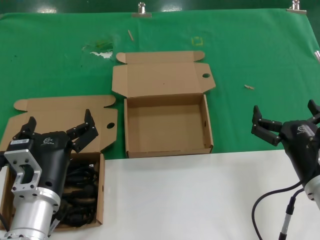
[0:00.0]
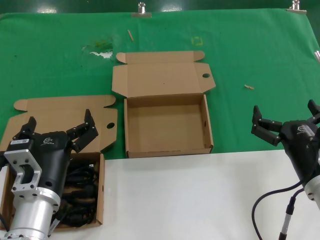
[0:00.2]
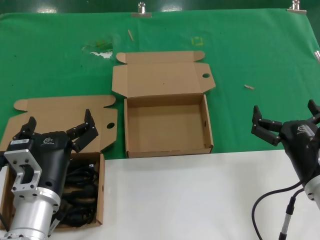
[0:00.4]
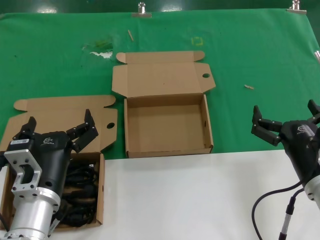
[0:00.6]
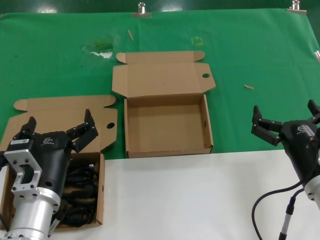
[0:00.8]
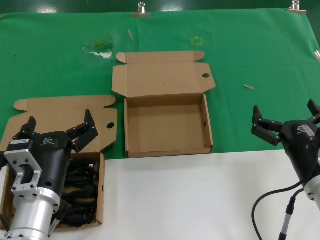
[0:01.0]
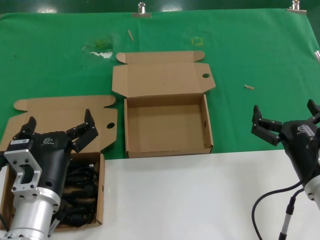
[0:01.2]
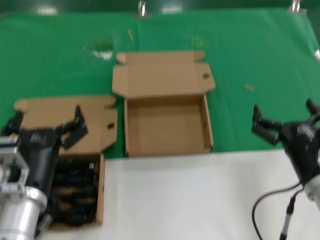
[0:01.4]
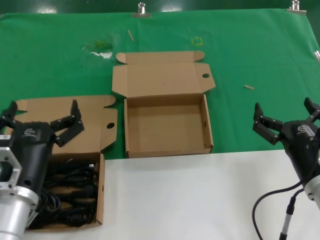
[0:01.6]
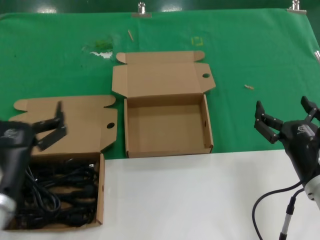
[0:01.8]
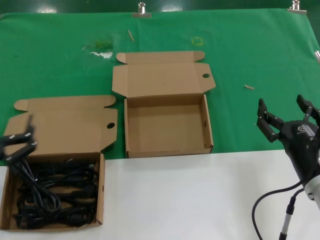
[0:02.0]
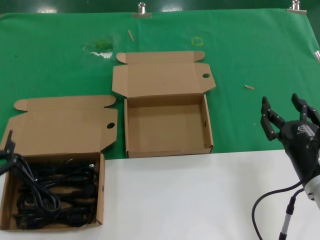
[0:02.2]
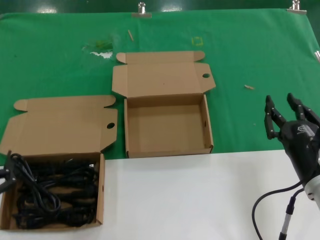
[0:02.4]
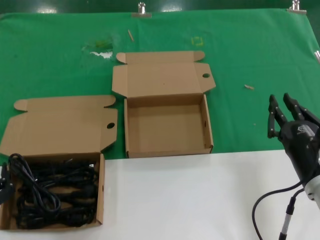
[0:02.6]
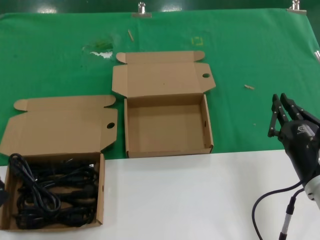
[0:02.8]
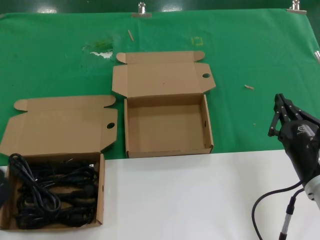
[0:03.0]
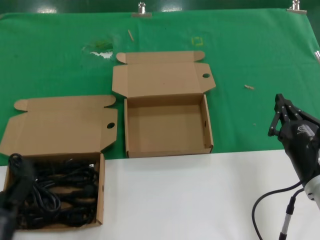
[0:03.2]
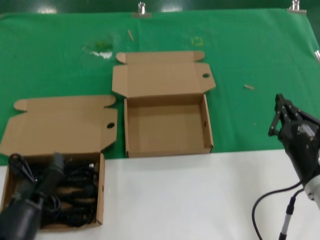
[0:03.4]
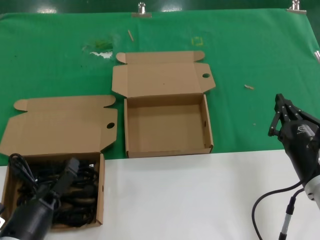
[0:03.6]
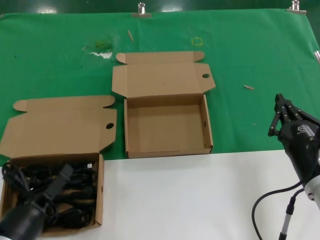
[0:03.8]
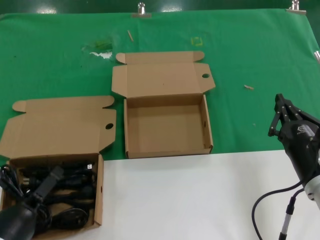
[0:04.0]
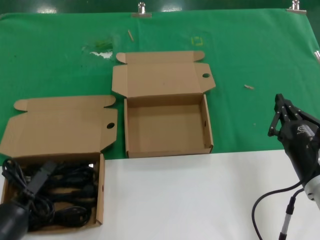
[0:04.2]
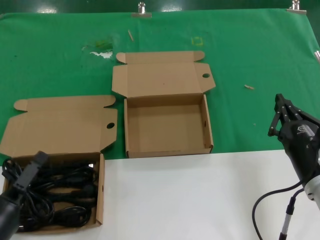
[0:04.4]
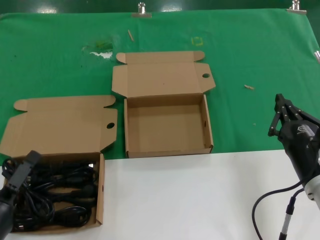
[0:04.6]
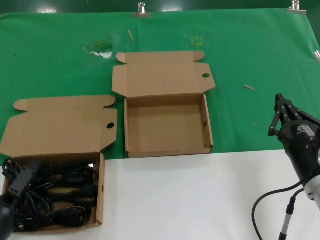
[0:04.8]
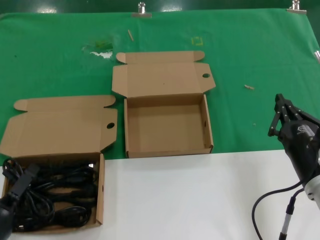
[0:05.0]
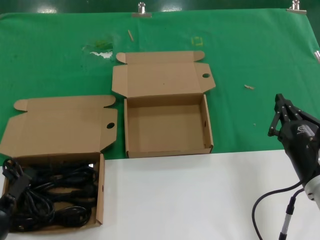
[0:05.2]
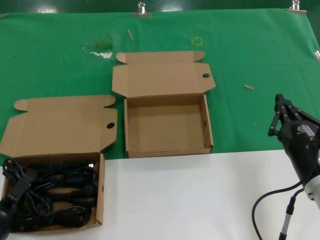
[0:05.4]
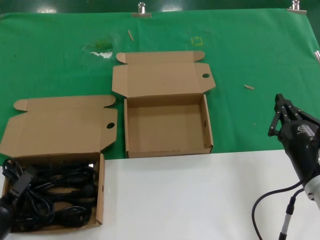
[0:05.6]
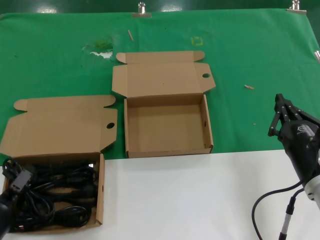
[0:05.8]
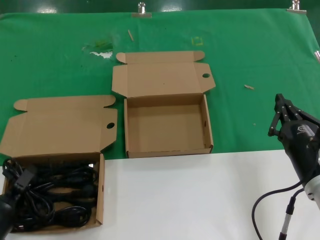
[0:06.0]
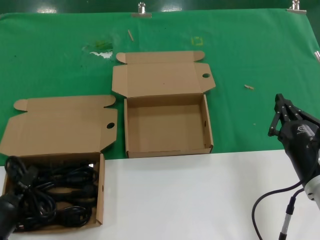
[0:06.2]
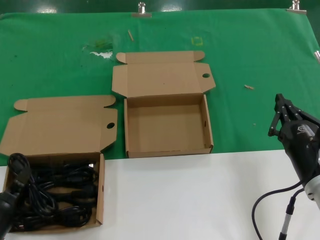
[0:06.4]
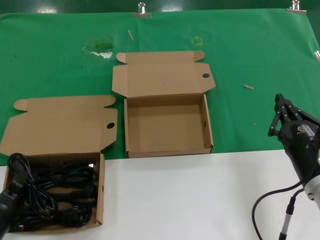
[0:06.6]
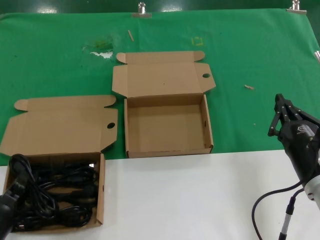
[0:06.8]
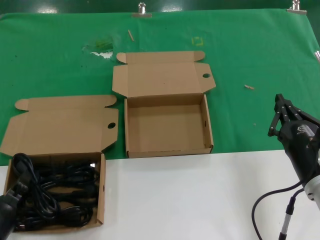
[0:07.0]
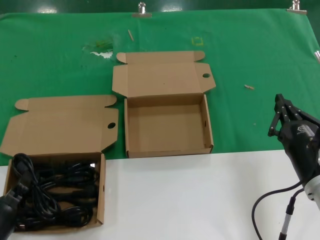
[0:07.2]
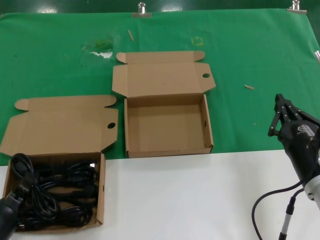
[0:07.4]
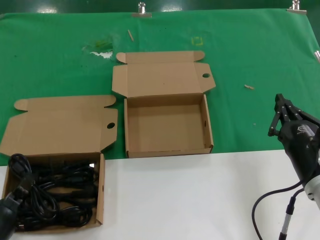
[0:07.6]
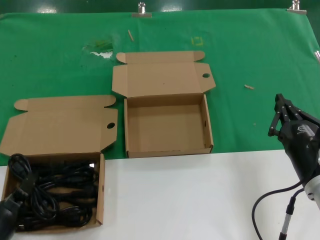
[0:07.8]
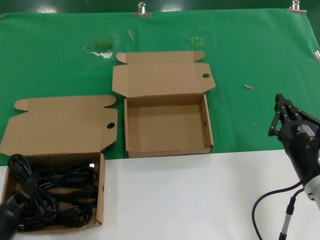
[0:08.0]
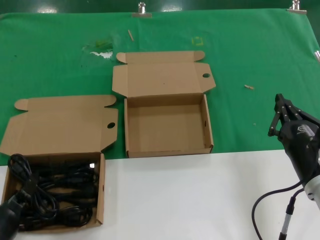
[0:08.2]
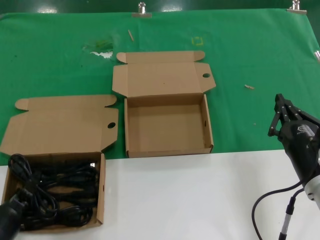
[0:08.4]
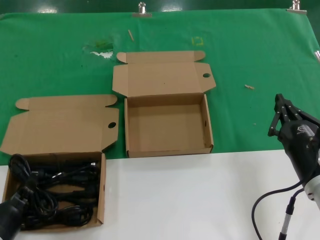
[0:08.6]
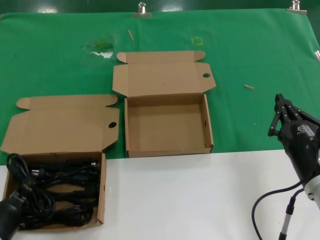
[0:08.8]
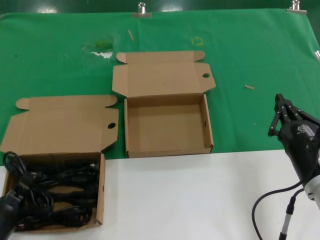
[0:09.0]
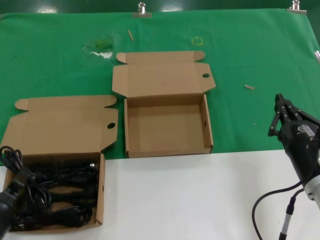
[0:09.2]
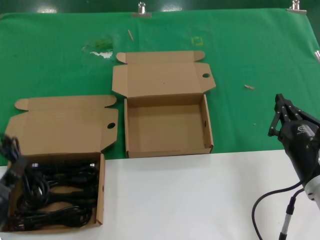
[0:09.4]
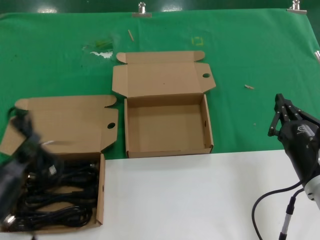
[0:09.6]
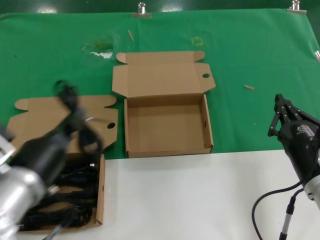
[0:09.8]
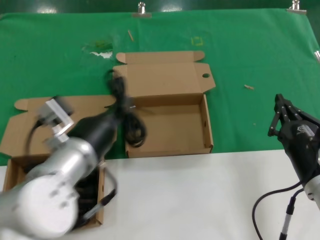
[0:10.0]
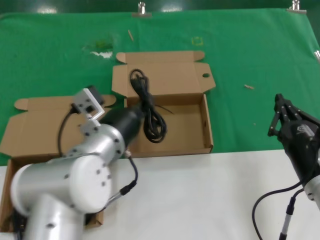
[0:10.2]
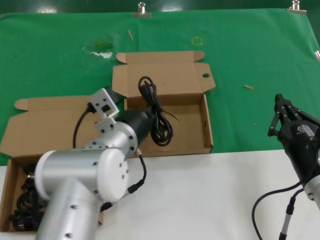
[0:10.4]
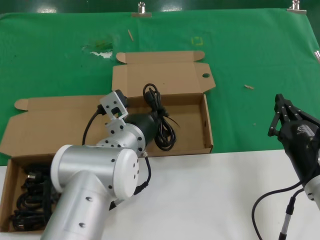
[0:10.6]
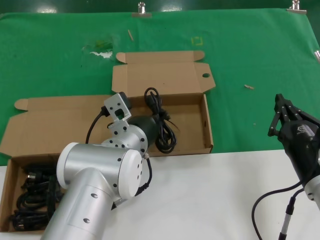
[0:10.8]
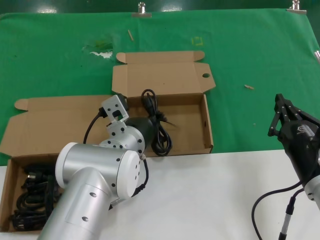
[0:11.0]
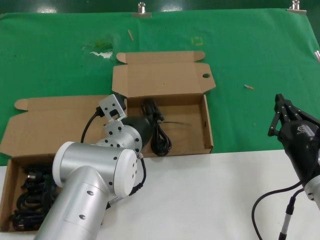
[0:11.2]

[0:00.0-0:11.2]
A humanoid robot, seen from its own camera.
Task of the whole recording: Pick up the power cord from the box containing it and place it in another box.
Step, 0:00.0 to 0:06.6: Grasp the data cable.
0:00.0 to 0:01.6: The hands make only small movements.
0:01.6 to 0:03.2: The left hand shifts approximately 10 cm backward, downward and to the left.
0:03.2 to 0:04.8: The left hand shifts by about 5 cm.
0:04.8 to 0:06.4: There are only small adjustments of the hands.
0:08.0 to 0:09.6: The left hand is displaced upward by roughly 10 cm.
0:09.6 to 0:11.2: The left hand shifts roughly 30 cm to the right and forward.

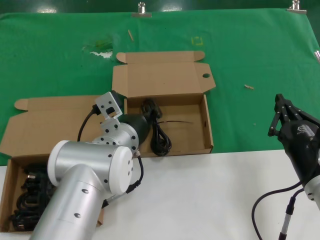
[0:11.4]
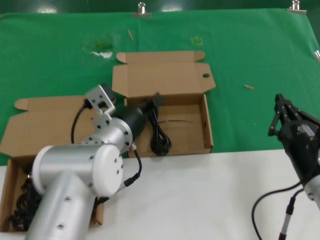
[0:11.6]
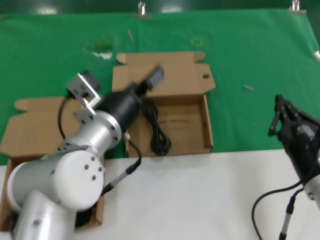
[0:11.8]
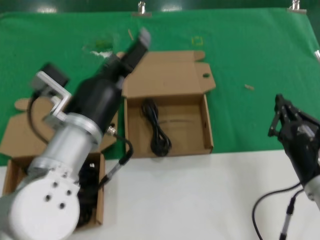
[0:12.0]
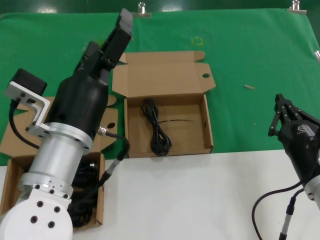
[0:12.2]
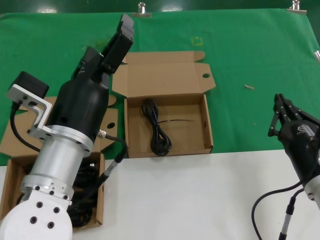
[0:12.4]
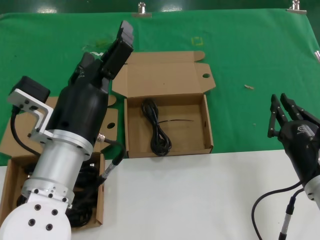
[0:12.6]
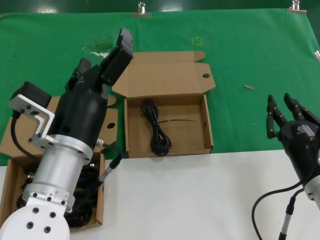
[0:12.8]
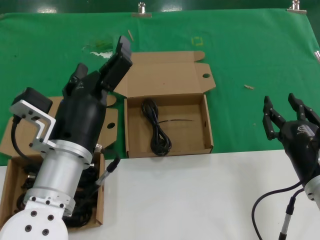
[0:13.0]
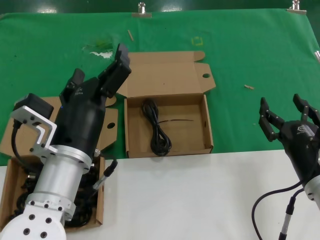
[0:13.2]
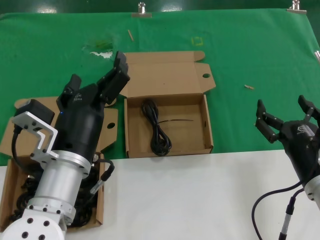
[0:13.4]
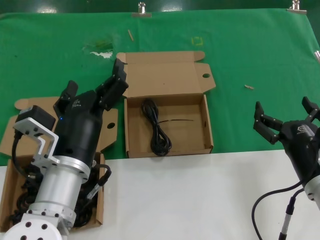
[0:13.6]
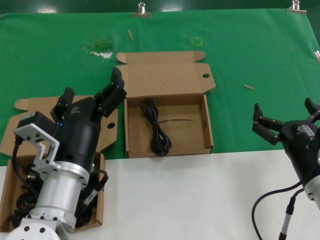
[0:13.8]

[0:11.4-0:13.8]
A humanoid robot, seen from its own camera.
Task of the whole recording: Pick up the power cord from the box containing it and place it in another box.
0:11.4 to 0:12.6: The left hand moves backward, upward and to the left, some 15 cm.
0:12.6 to 0:13.8: The left hand is displaced downward by some 5 cm.
